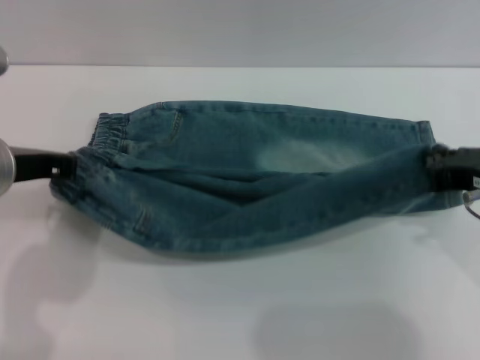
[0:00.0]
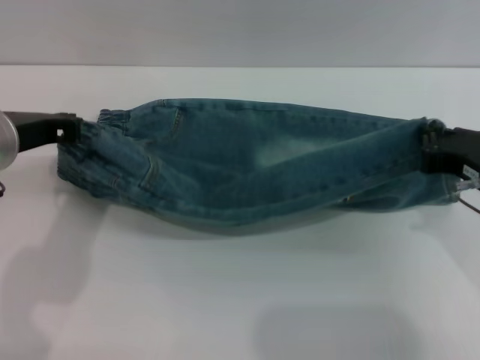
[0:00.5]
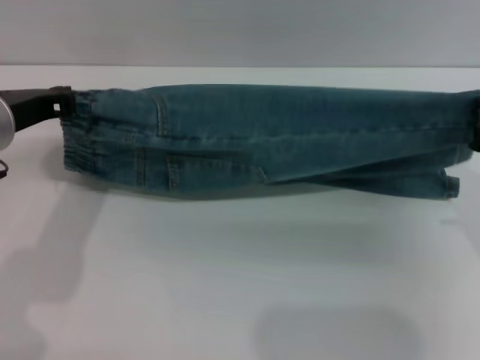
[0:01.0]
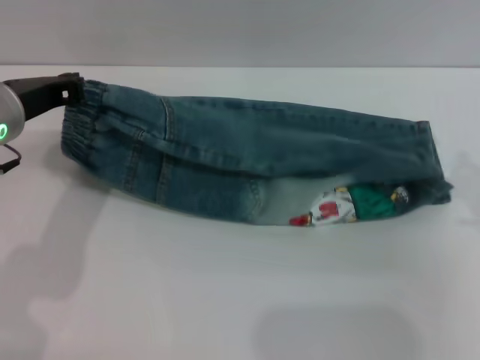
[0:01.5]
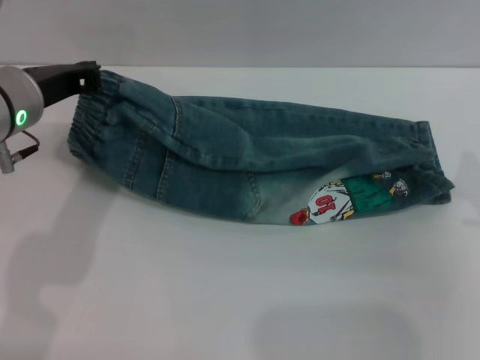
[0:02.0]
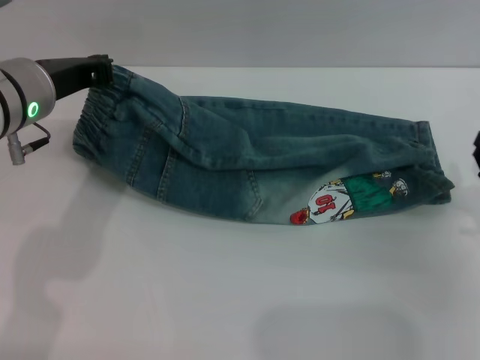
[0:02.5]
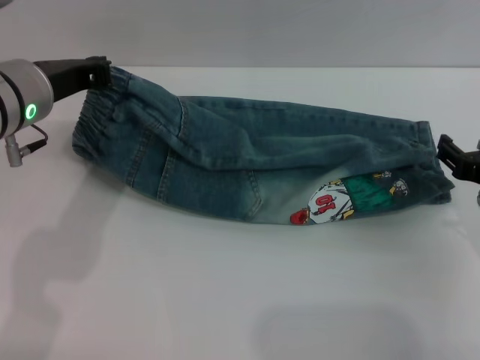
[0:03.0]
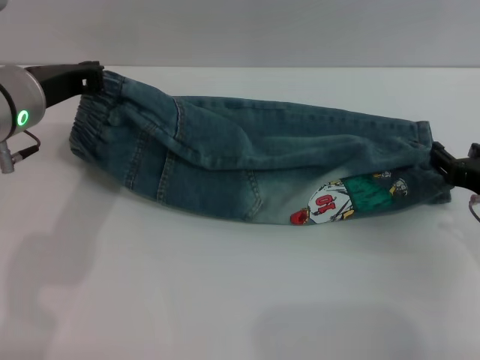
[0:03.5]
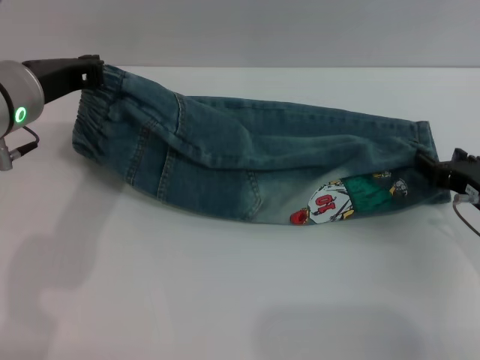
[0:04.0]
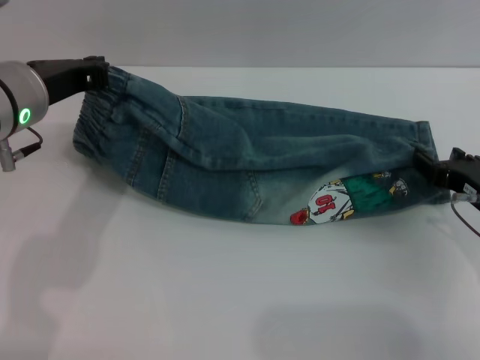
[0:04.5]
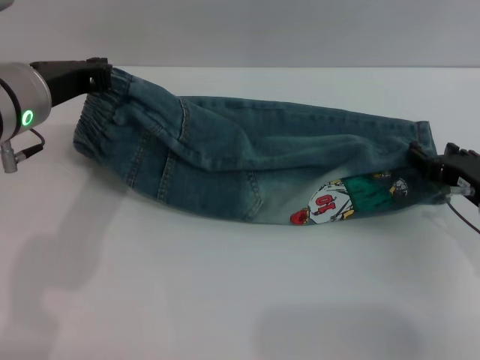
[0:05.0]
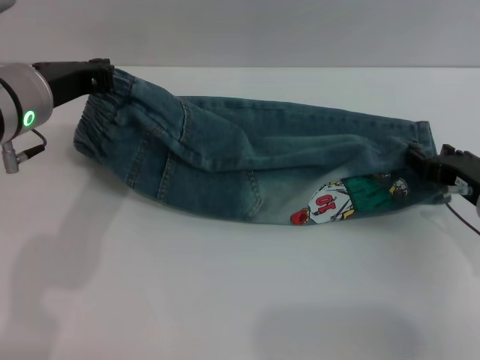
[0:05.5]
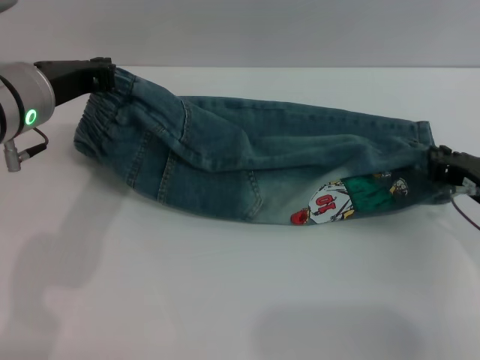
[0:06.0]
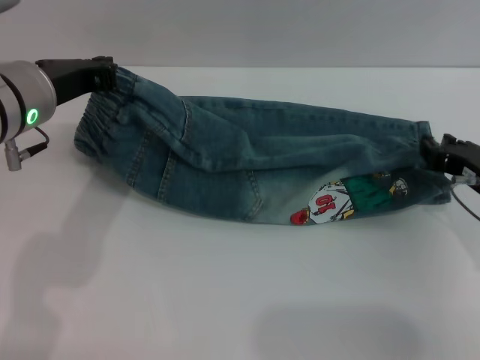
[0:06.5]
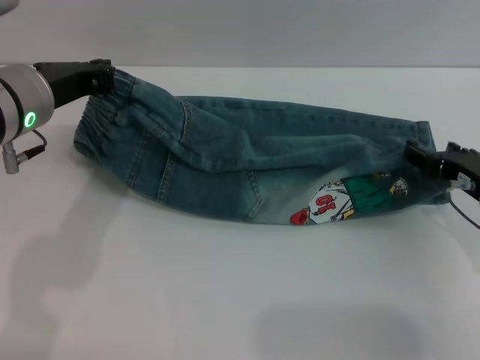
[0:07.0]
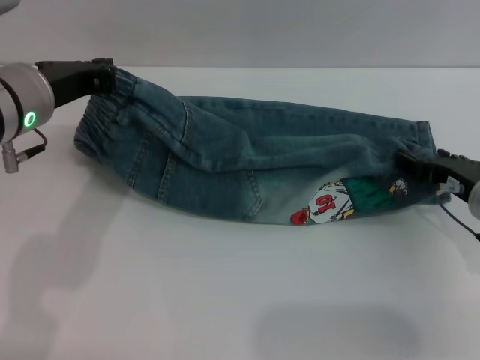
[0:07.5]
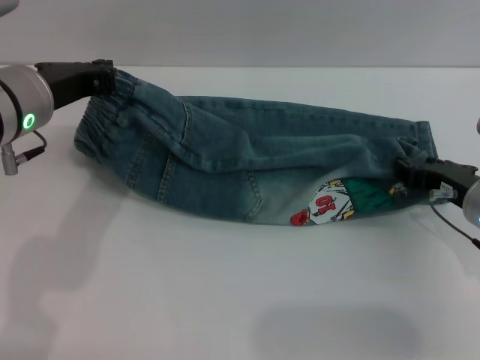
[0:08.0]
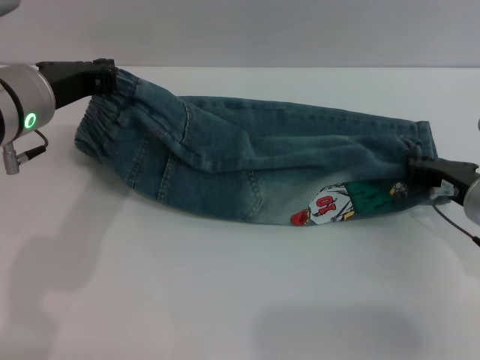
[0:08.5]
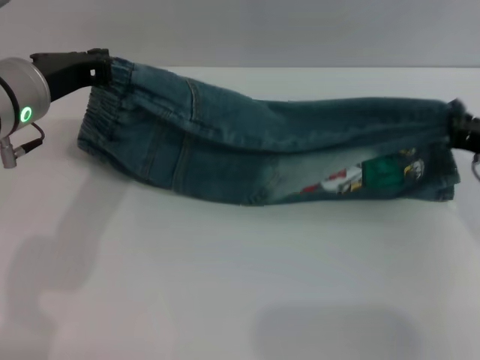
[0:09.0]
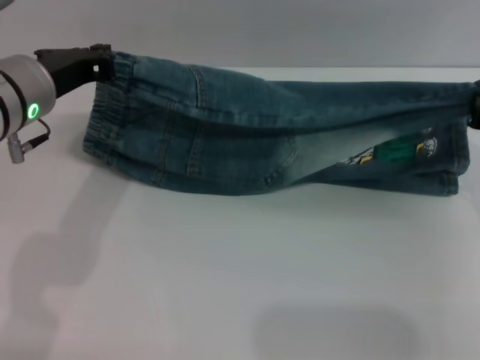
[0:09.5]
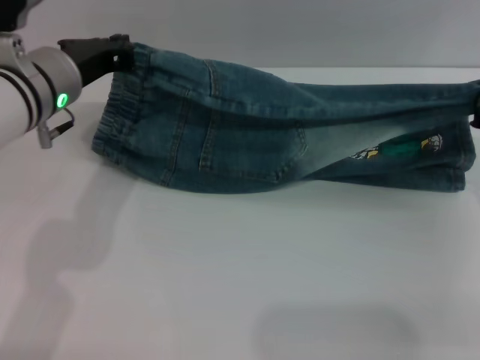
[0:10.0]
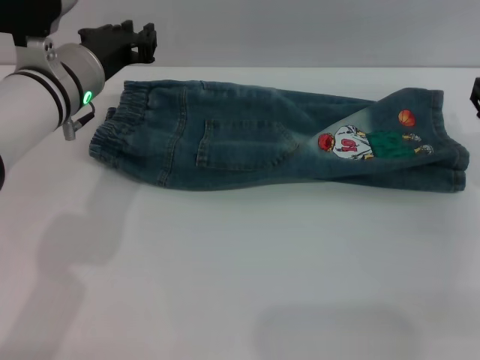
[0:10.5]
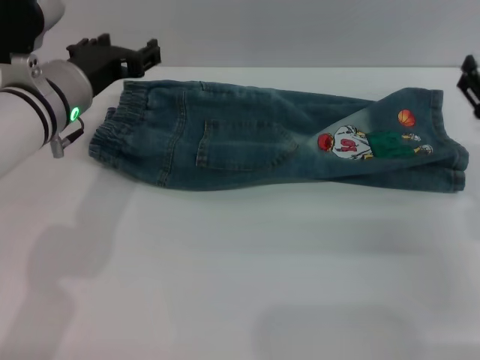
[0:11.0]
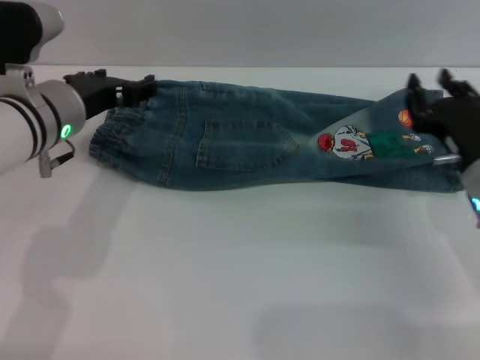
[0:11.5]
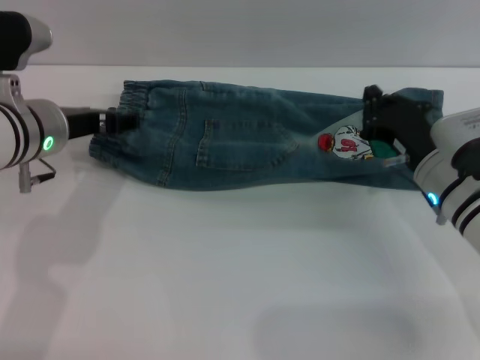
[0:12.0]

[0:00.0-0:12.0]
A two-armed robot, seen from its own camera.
Step, 0.0 to 10.5 s: Fold the bottom of the pants upward with both grippers.
0.0 to 2.0 s: The left gripper heads forward, covering about 5 cm; the right gripper moves downward and to the right, about 10 cm.
2.0 to 4.0 s: The right gripper changes place by approximately 5 cm, and opens its fingers.
4.0 to 6.0 s: The right gripper closes up.
6.0 to 8.0 s: The right gripper opens up.
8.0 to 10.0 s: The right gripper moves about 5 cm, and closes its fingers.
10.0 to 12.0 s: The right gripper shifts some 10 cm to the left and downward, and opens, then closes again; the left gripper opens.

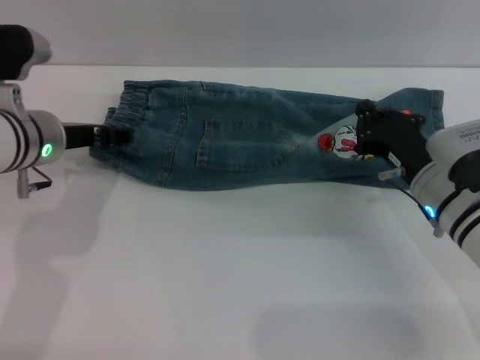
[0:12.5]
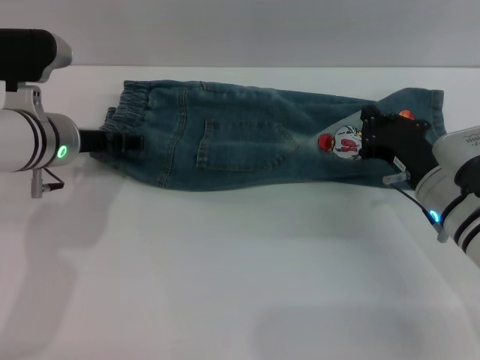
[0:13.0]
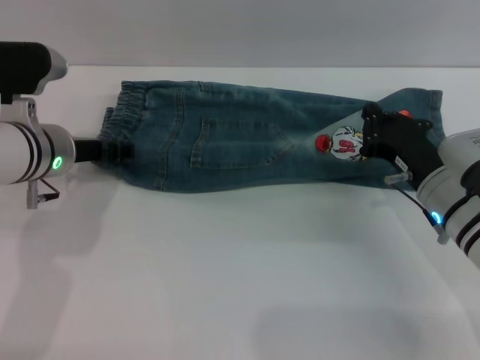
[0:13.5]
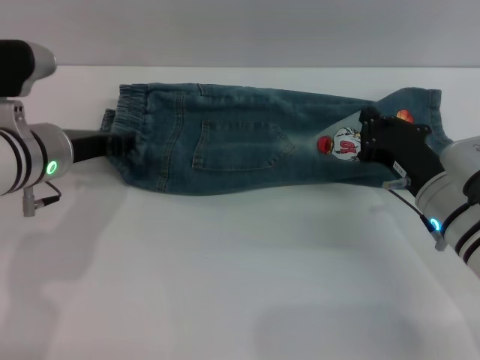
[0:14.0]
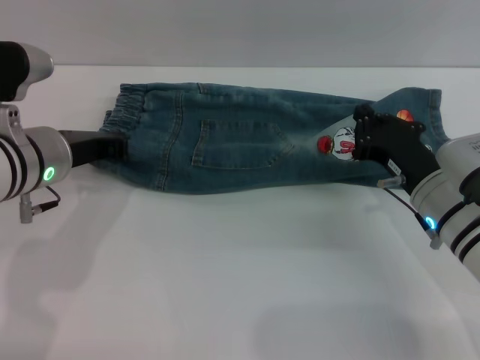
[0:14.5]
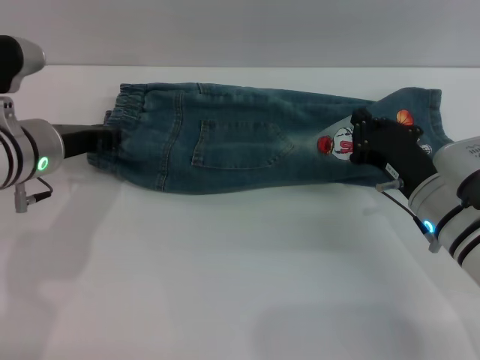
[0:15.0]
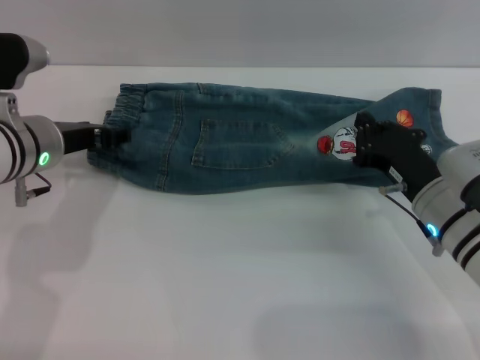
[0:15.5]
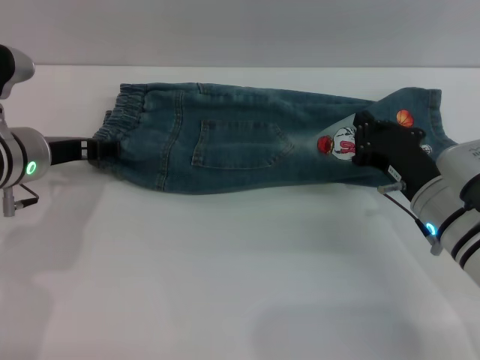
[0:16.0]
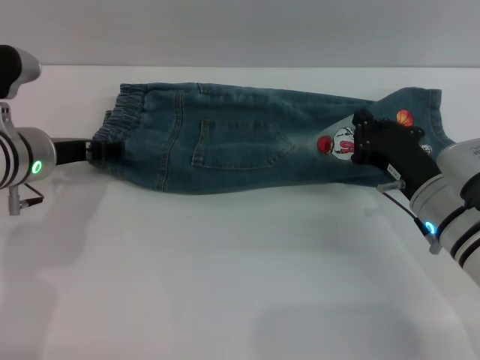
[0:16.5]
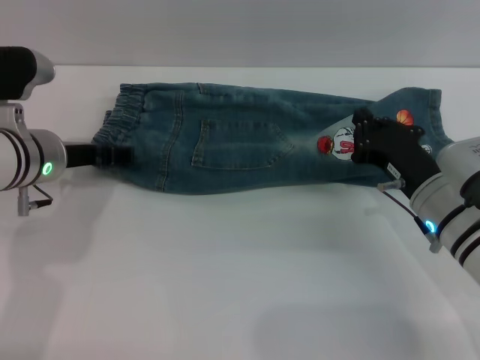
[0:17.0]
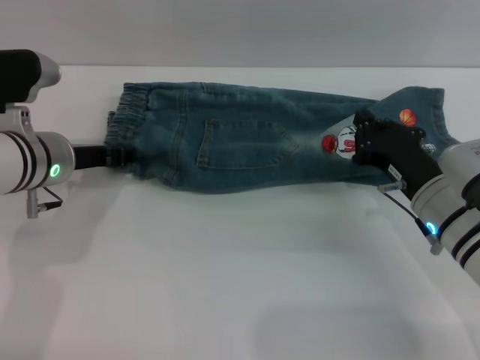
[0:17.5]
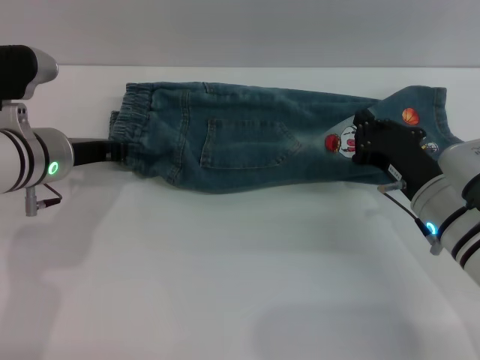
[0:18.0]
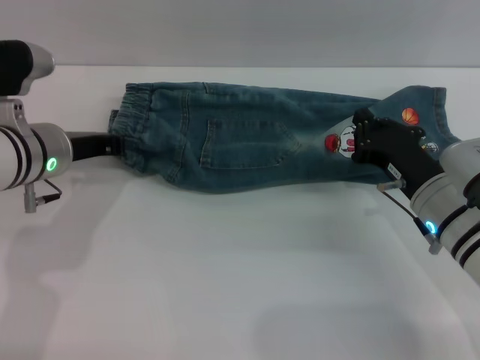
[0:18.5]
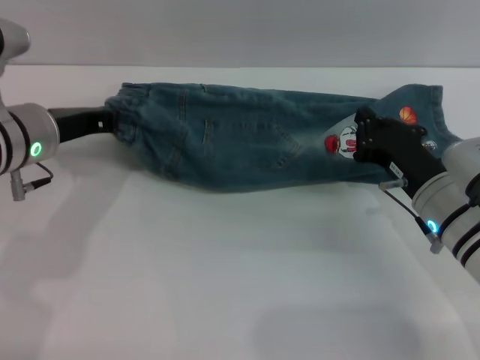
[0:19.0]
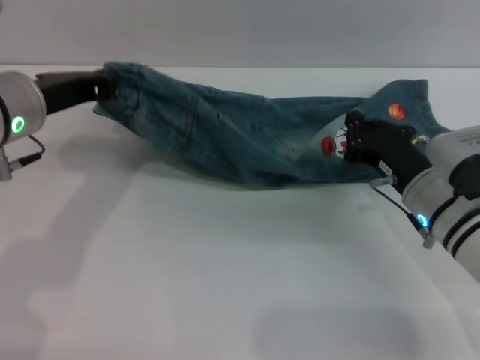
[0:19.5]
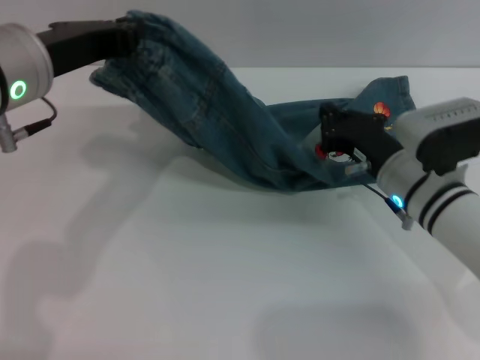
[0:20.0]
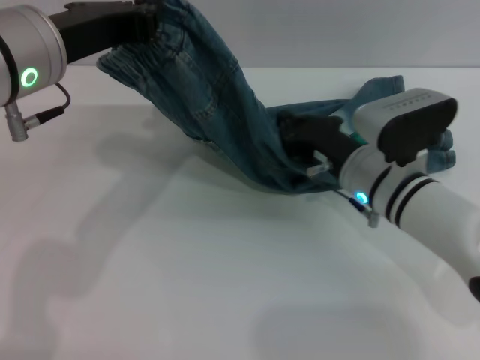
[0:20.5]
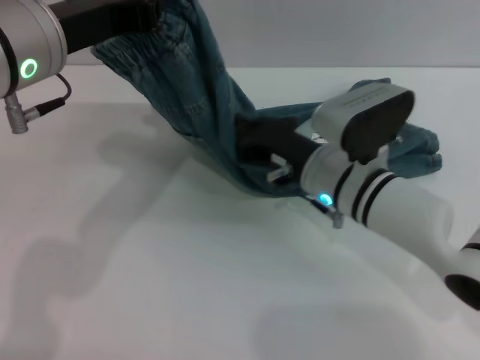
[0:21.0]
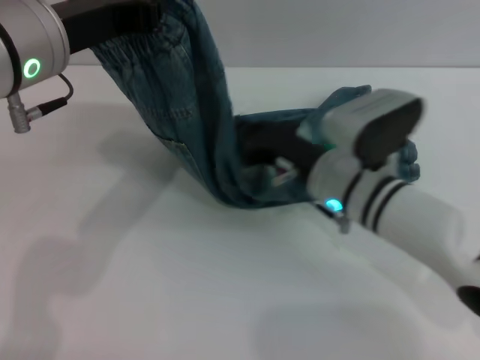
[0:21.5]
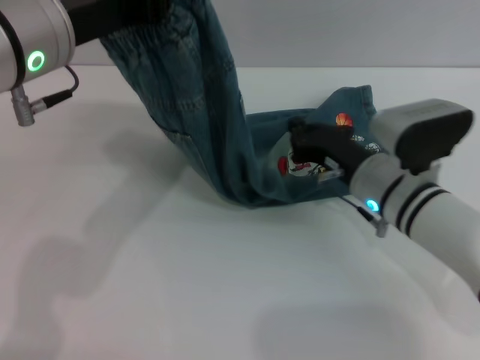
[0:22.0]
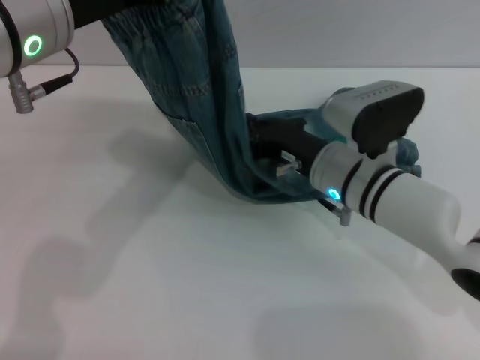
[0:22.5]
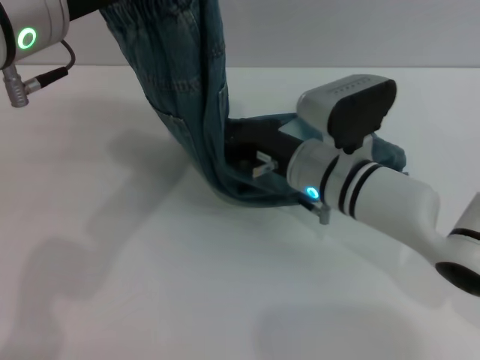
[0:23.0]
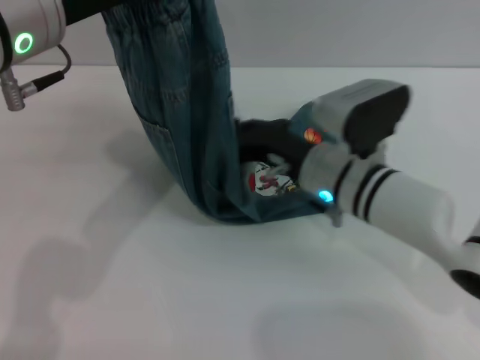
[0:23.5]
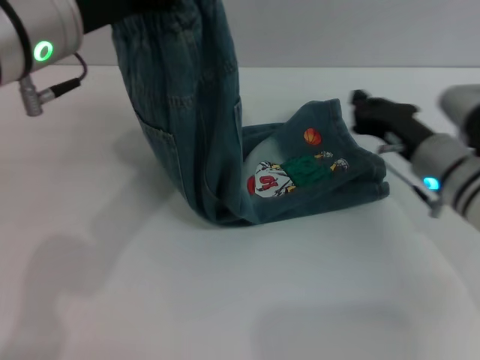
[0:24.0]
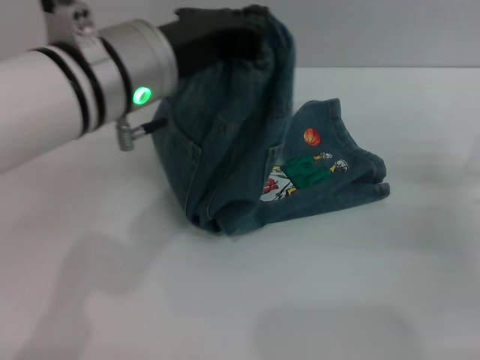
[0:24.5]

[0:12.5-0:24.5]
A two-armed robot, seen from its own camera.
12.5 to 14.5 s: The left gripper closes.
14.5 to 16.5 s: The left gripper opens up.
16.5 to 18.5 s: The left gripper closes its fingers.
18.5 to 20.5 s: The right gripper travels to the left by about 5 cm; the left gripper heads upward, covering some 15 cm.
20.5 to 22.5 s: The right gripper moves left and right over some 5 cm, changing direction 2 times.
22.5 to 24.5 s: The left gripper travels to the right by roughly 5 cm; the right gripper moves to the right, approximately 20 cm.

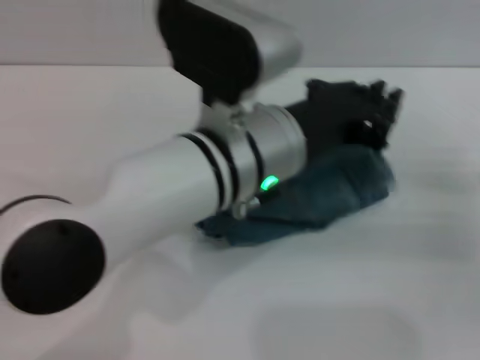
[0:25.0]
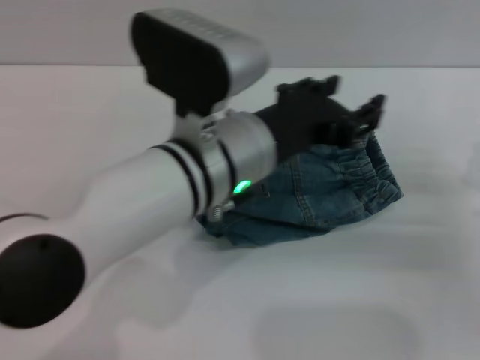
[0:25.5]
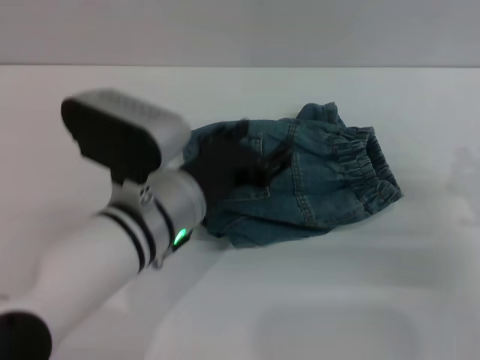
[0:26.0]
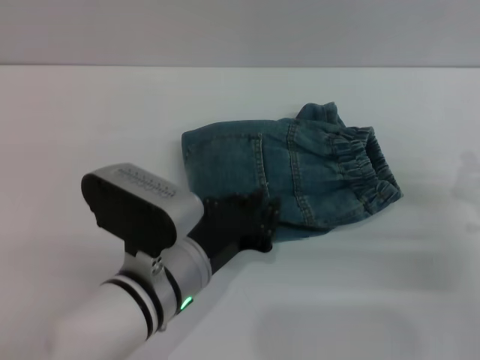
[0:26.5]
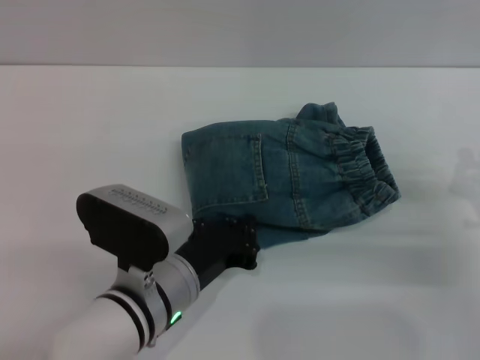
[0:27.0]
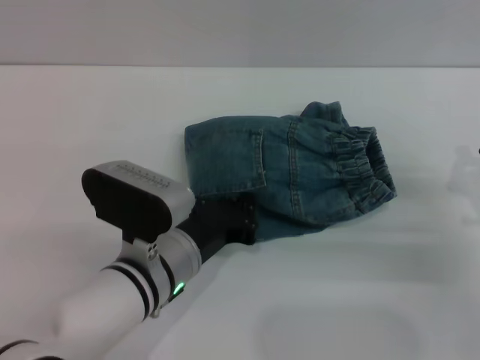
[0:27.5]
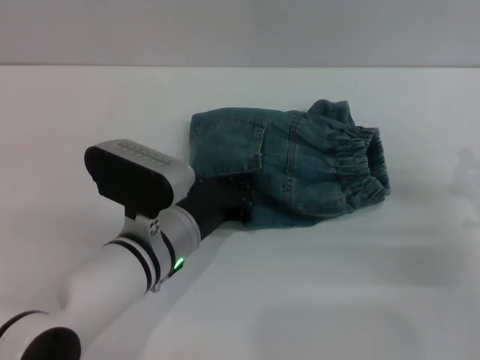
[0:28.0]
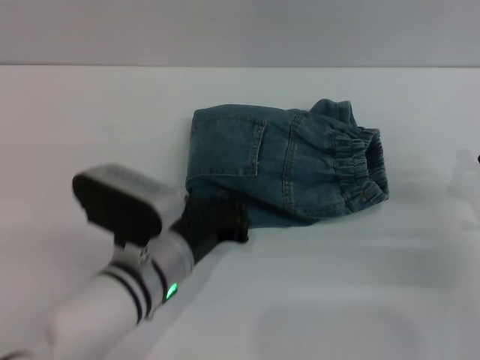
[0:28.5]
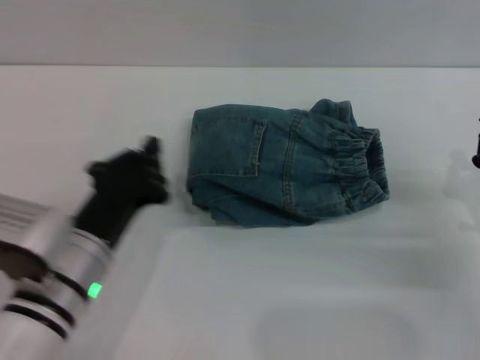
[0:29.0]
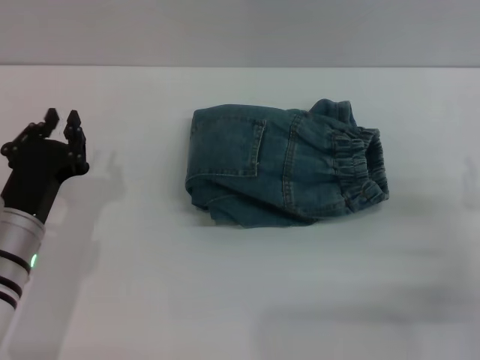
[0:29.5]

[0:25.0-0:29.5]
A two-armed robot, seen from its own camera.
25.0 to 27.0 s: The left gripper heads downward, to the left and backward, covering about 15 cm, and opens, then closes again.
27.0 to 29.5 s: The left gripper travels to the left by roughly 15 cm.
